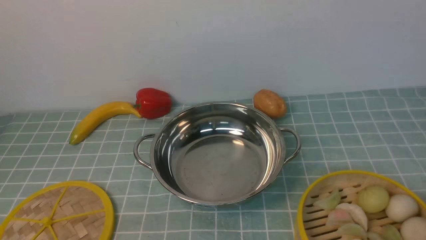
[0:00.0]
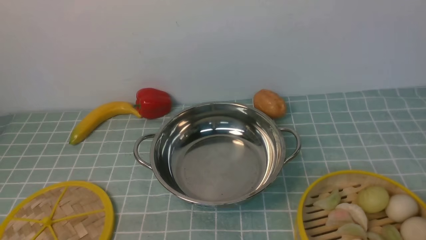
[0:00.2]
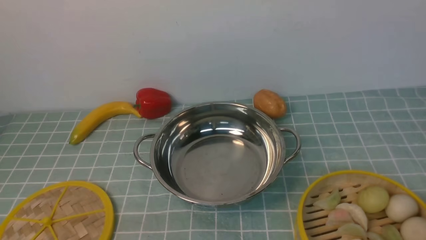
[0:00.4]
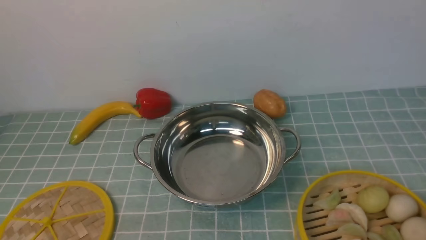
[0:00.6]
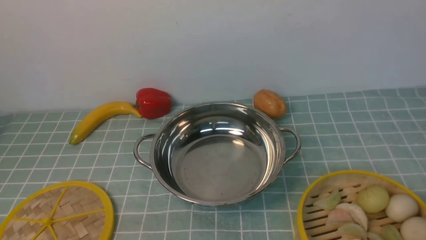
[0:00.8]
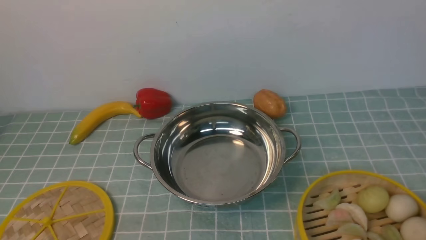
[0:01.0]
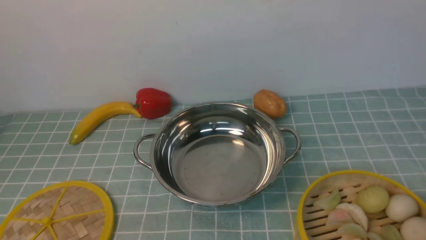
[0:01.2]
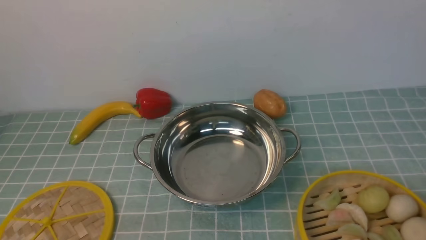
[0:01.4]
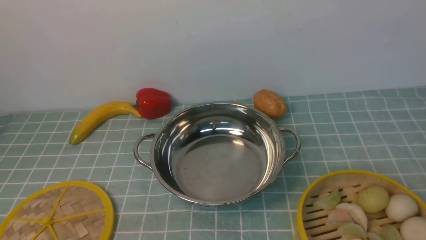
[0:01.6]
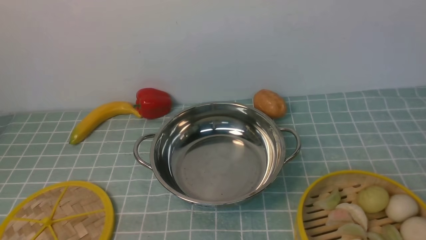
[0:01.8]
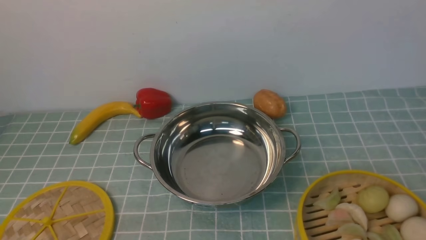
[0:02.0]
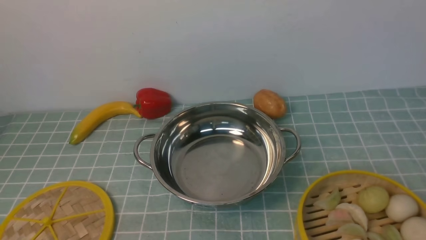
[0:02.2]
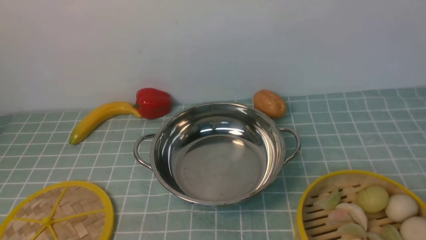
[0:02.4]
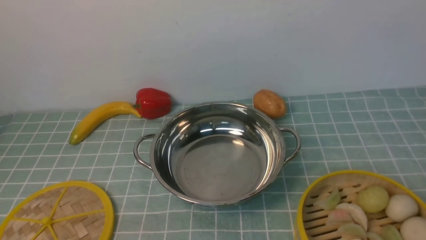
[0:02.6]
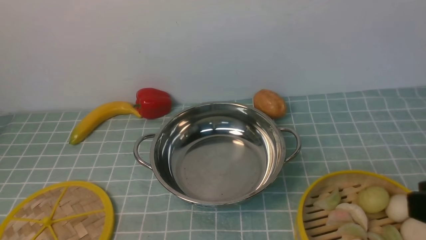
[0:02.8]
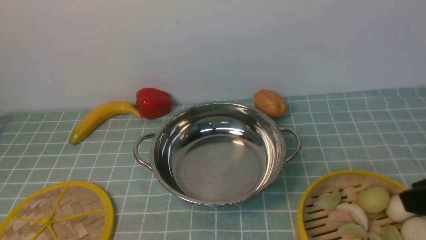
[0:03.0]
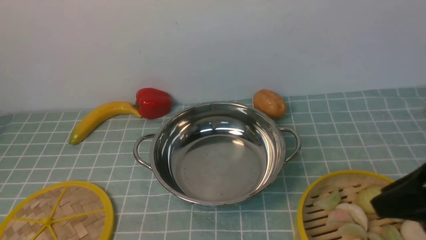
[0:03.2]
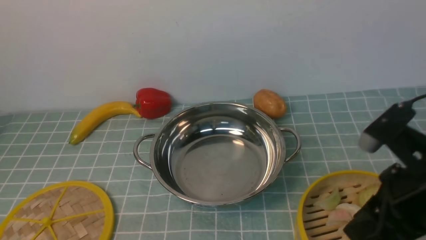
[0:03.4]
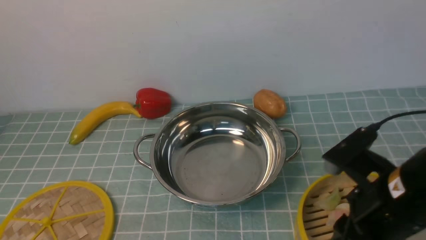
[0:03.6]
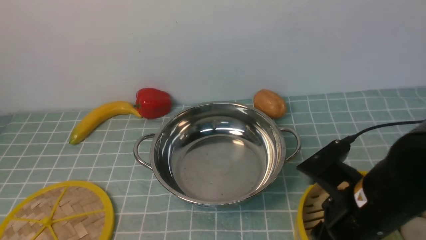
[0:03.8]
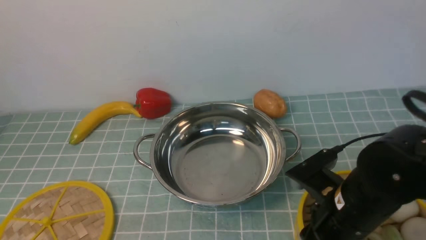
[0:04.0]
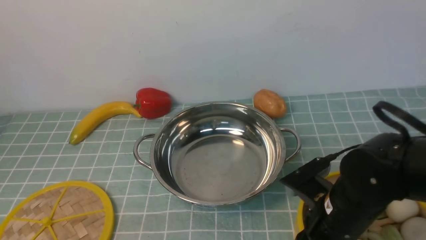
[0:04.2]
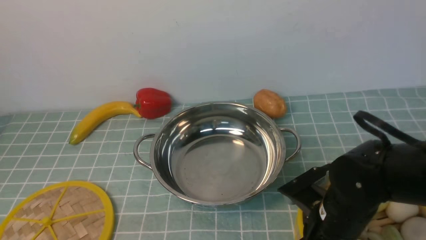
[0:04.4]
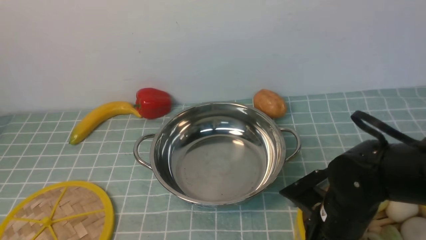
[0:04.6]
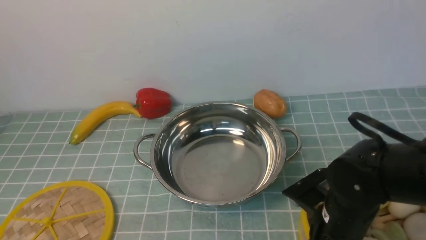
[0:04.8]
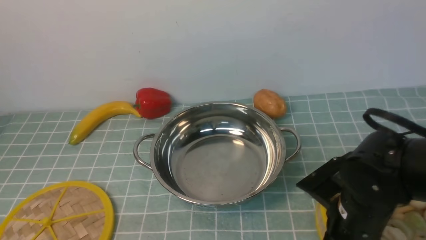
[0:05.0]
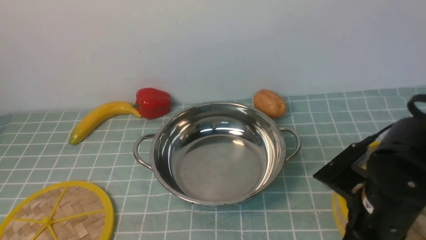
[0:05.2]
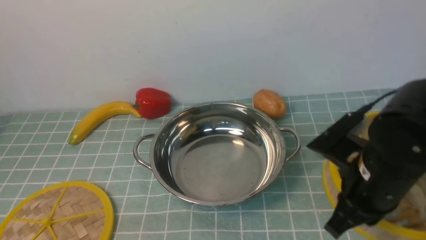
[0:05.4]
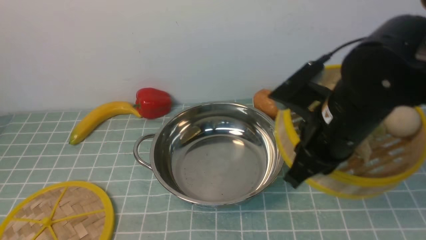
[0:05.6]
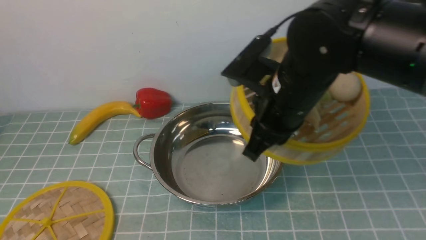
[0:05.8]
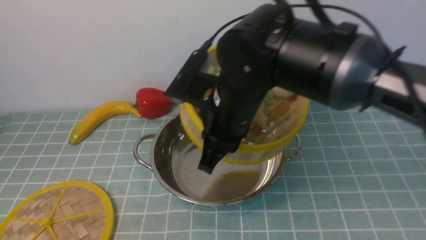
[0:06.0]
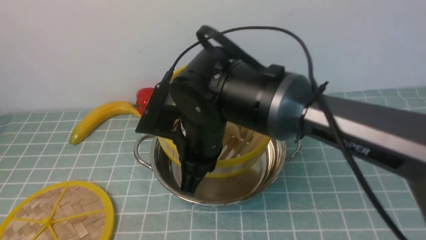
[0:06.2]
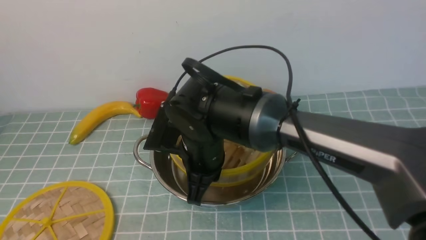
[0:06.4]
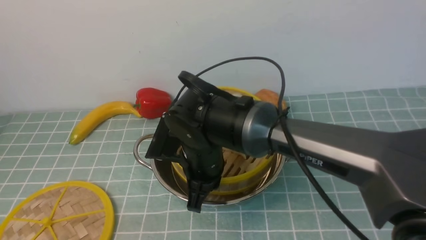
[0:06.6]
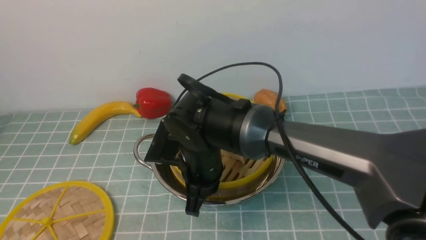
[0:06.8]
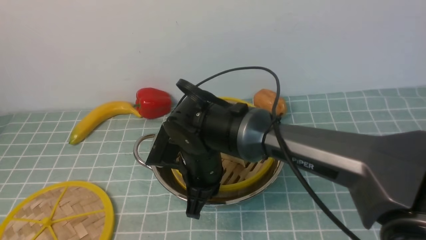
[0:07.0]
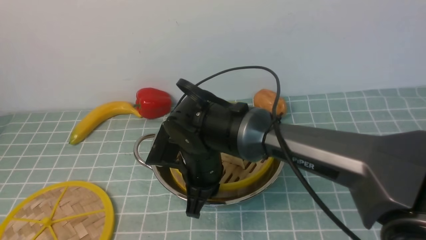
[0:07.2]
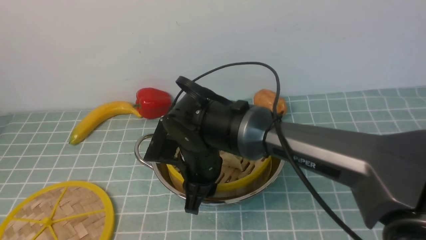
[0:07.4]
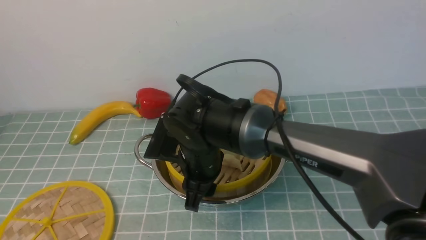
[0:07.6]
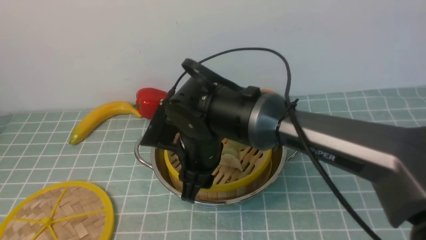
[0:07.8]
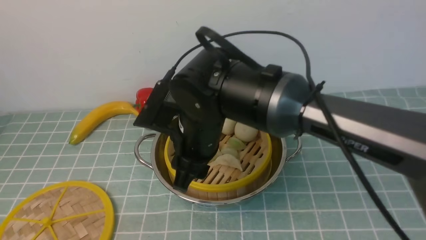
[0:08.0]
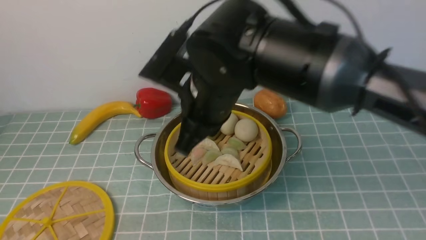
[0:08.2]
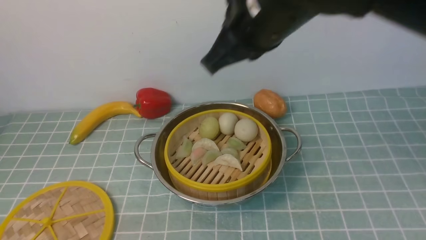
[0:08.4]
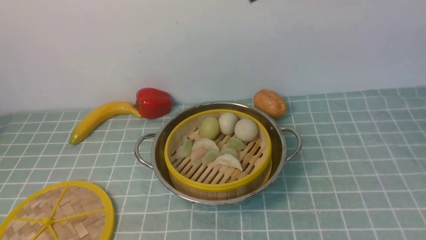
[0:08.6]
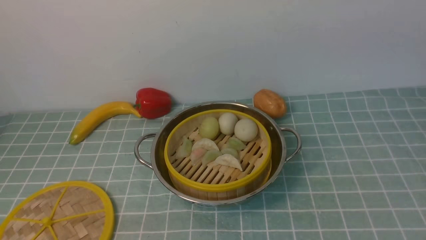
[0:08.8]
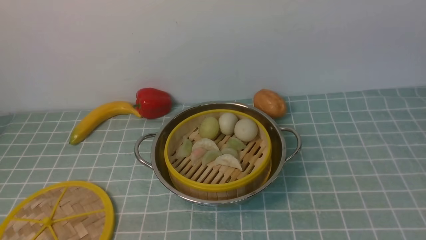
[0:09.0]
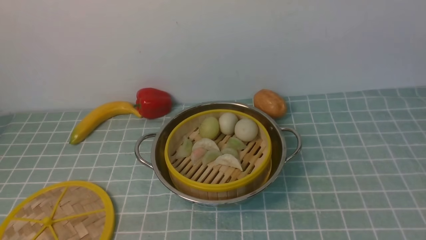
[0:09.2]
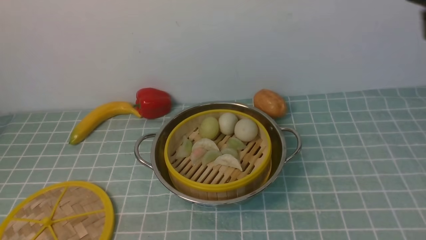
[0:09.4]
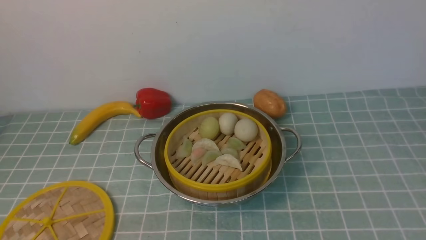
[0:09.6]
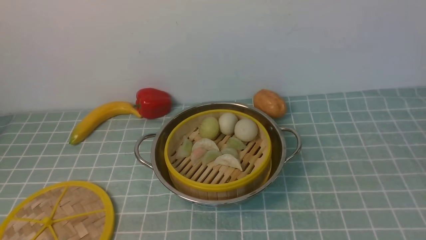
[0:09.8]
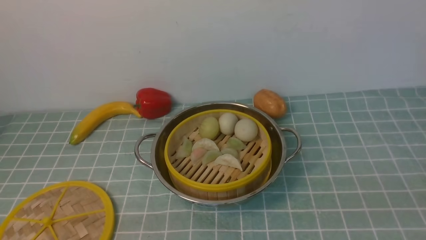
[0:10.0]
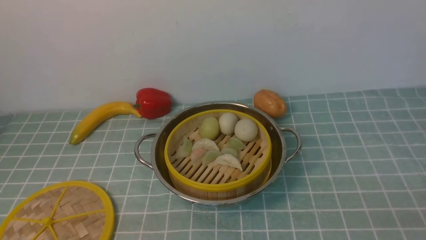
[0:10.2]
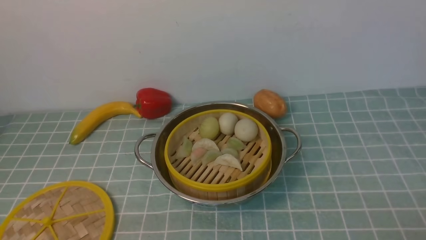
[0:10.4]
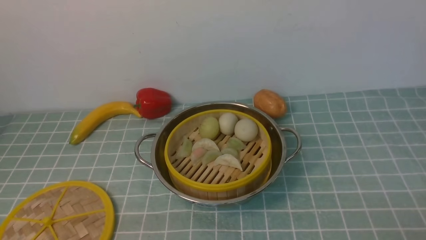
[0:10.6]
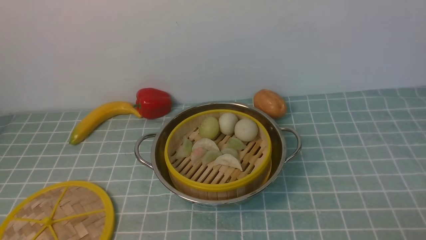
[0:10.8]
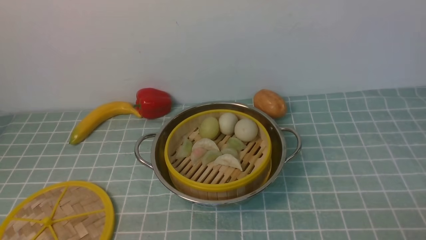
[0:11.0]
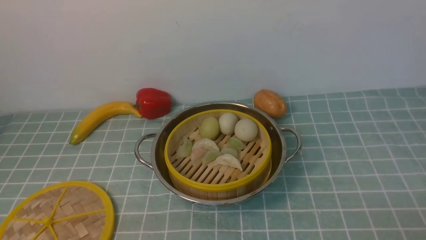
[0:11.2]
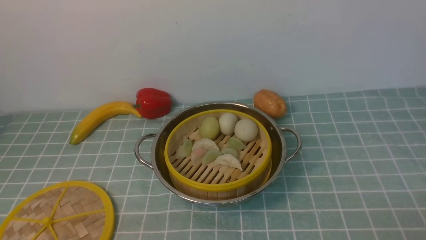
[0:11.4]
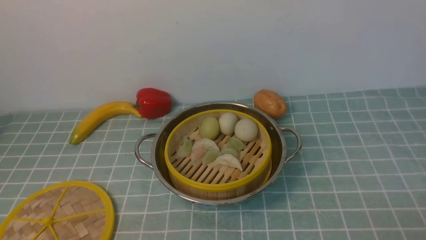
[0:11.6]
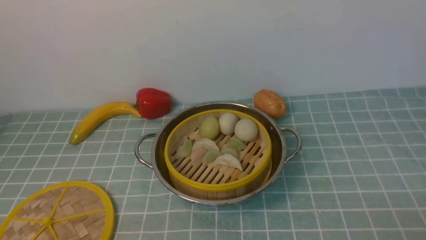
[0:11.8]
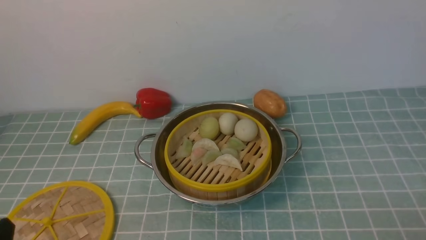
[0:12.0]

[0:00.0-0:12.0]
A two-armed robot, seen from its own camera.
Task of the whole recording: place the steamer in the pot on the blue tablecloth, and put the lid on the steamer.
Step, 0:00.0 to 0:05.2: use the right arm to lift the steamer closest to it.
Step, 0:05.4 to 0:08.2: use the right arm to put the steamer into the iron steamer pot in the middle.
0:01.6 to 0:03.0: The right gripper goes roughly 10 cm forward.
0:03.0 to 0:04.4: The right gripper is displaced downward, to the left and forward by approximately 20 cm.
0:04.4 to 0:06.0: The right gripper heads to the left, upward and forward, covering roughly 20 cm, and closes.
0:06.0 to 0:07.6: The right gripper goes roughly 10 cm downward and to the left, and opens.
0:07.6 to 0:09.0: The right gripper moves upward and to the right, roughly 35 cm, and closes its fingers.

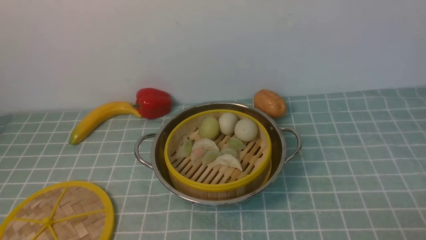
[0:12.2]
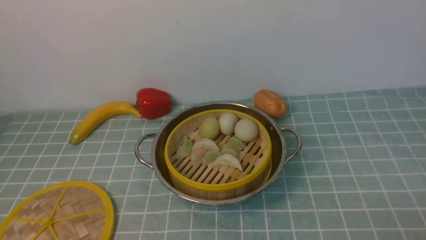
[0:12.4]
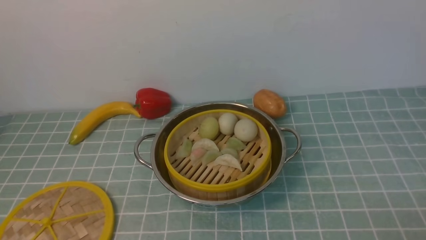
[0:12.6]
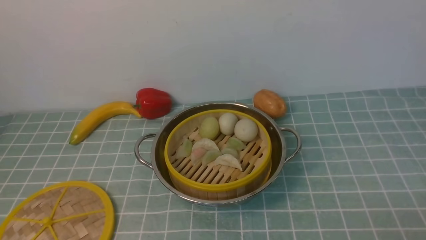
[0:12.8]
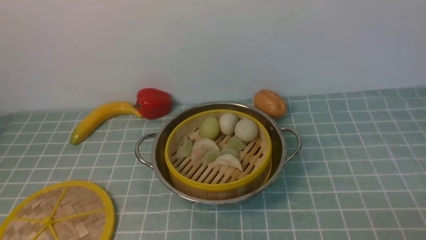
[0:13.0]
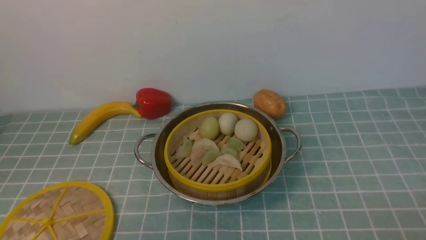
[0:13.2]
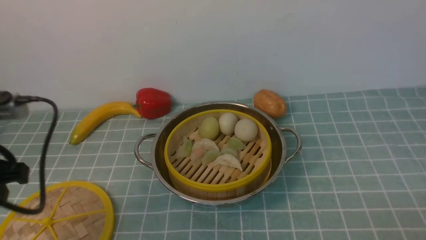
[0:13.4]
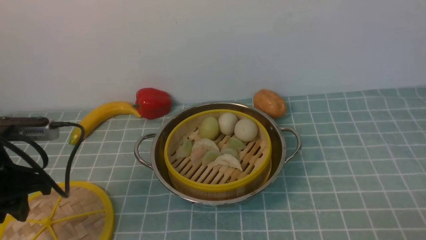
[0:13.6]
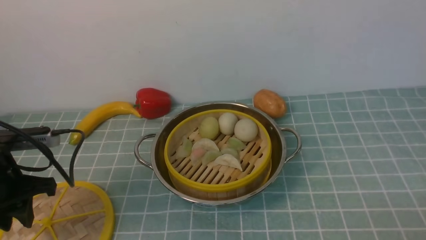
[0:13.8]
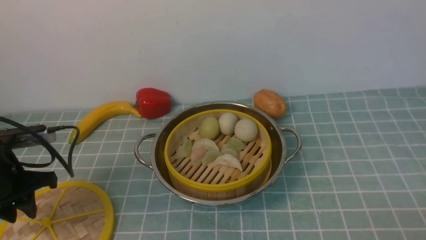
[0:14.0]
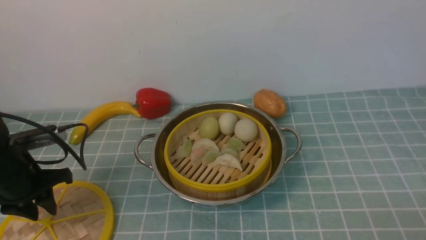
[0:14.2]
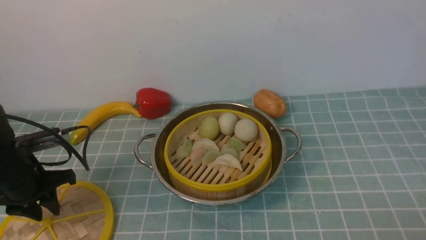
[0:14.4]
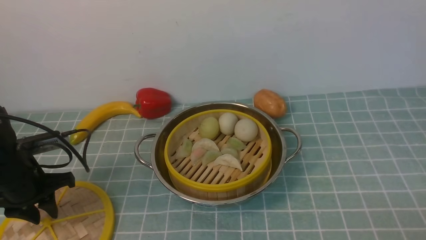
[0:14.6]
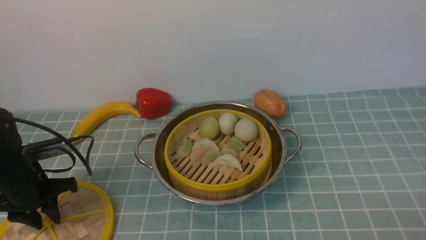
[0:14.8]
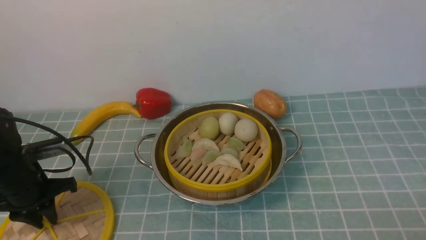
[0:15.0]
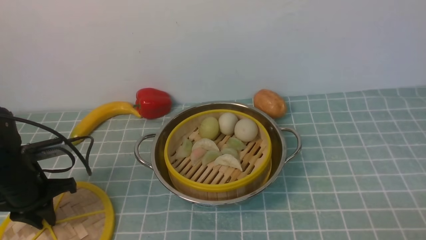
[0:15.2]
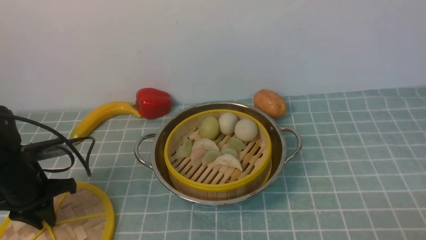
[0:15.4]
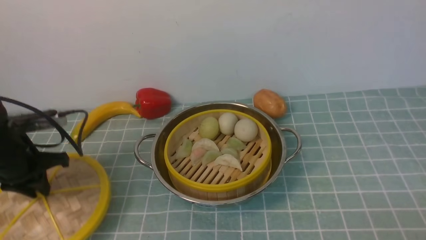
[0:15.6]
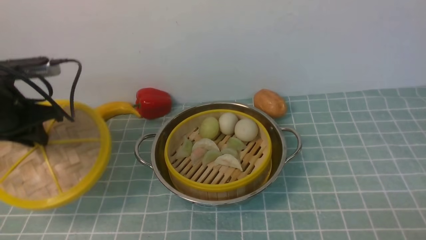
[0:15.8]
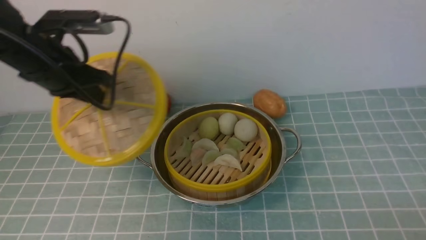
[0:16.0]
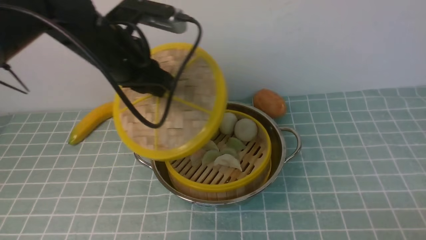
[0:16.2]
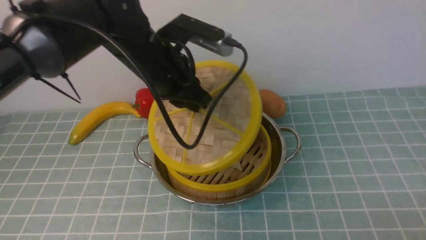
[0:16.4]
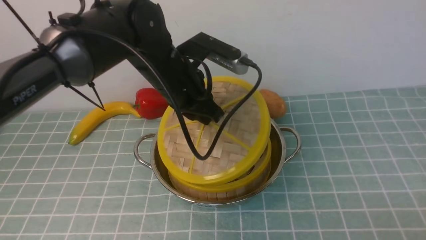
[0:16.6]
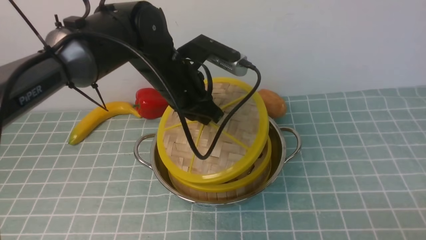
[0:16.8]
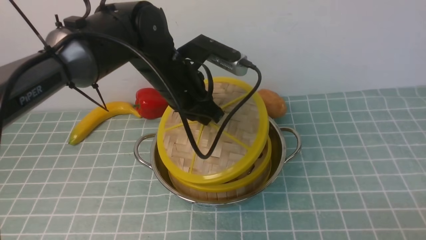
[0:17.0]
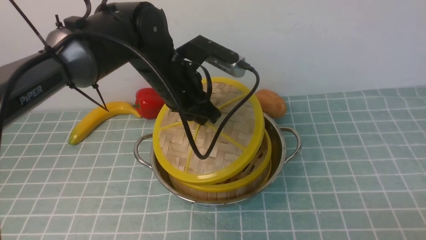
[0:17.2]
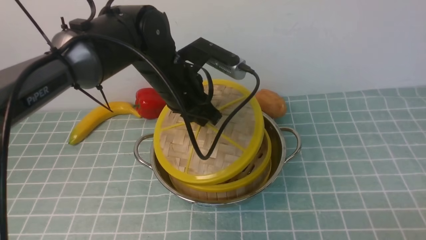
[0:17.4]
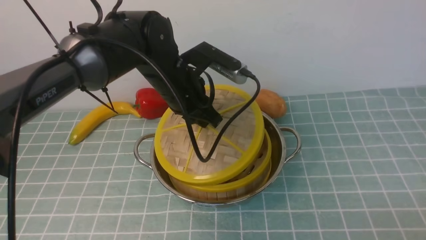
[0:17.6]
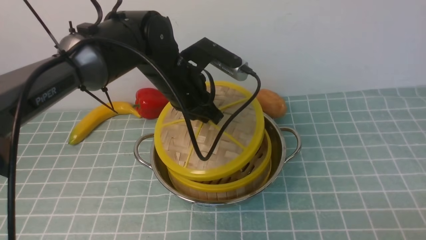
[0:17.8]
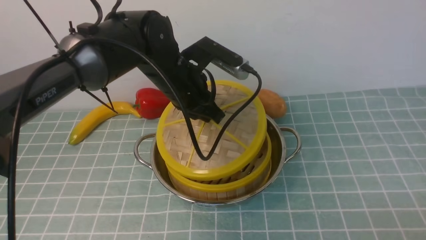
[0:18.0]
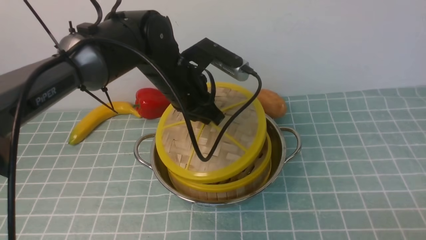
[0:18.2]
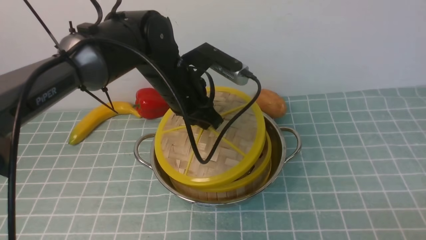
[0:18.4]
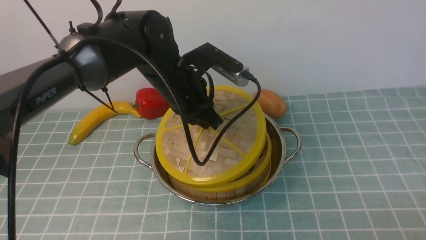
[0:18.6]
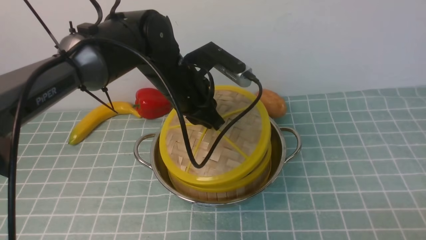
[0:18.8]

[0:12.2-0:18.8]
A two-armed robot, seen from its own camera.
Task of the whole recording: place the steamer in the pot on the blue tablecloth, and put the lid on the steamer.
Step, 0:12.2 to 0:15.8: use the left arm to lift the lid of the steamer.
0:12.2 to 0:13.8: The left gripper shifts approximately 20 cm forward.
0:13.8 to 0:15.4: The left gripper travels downward by about 5 cm, and closes.
0:15.4 to 0:17.2: The left gripper moves to the right, about 25 cm.
0:17.2 to 0:18.8: There are only small adjustments of the grippers.
